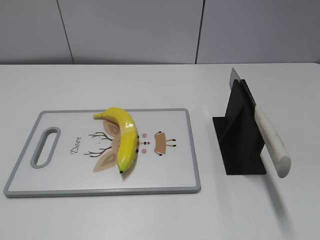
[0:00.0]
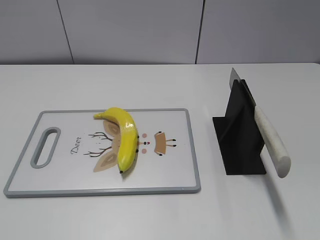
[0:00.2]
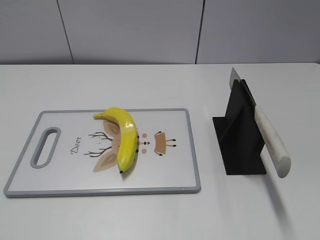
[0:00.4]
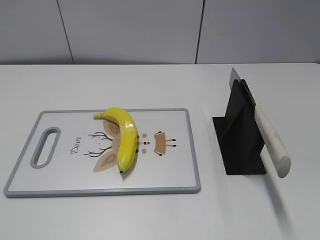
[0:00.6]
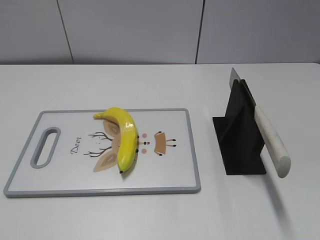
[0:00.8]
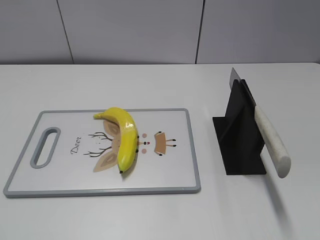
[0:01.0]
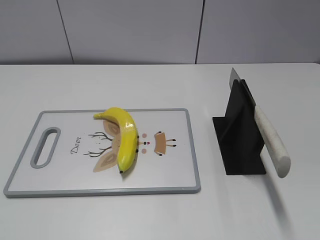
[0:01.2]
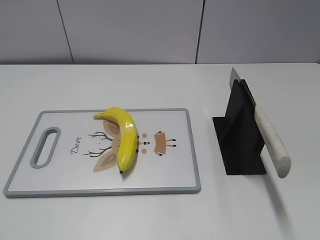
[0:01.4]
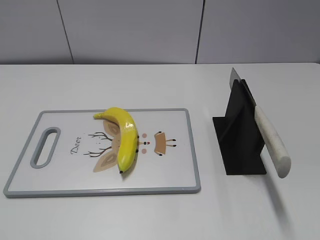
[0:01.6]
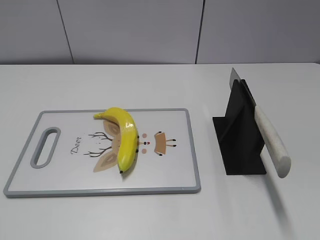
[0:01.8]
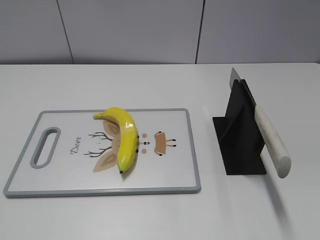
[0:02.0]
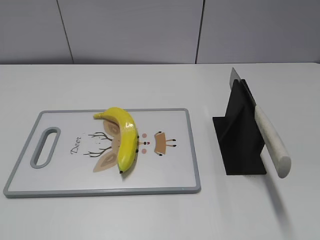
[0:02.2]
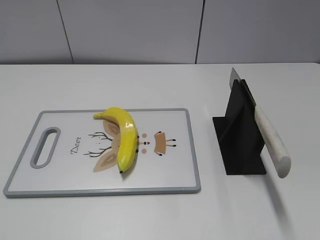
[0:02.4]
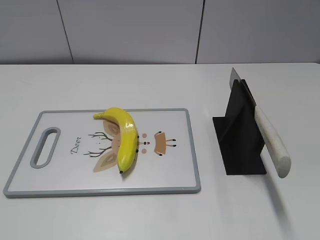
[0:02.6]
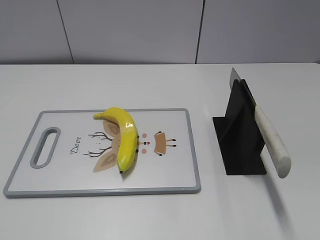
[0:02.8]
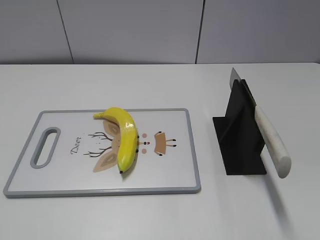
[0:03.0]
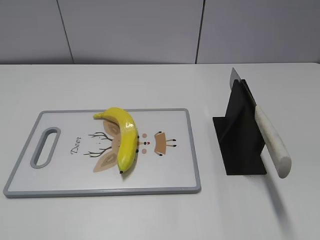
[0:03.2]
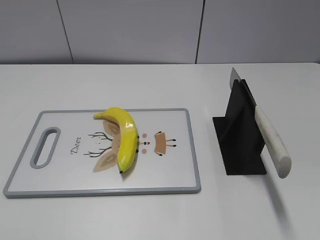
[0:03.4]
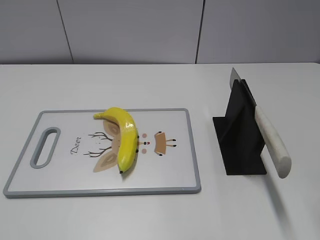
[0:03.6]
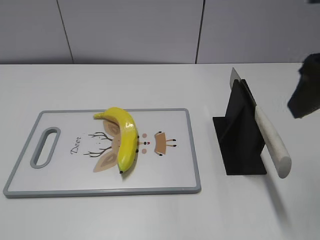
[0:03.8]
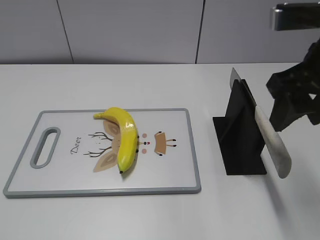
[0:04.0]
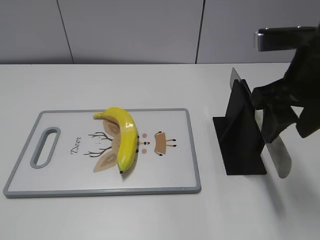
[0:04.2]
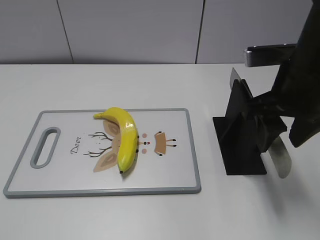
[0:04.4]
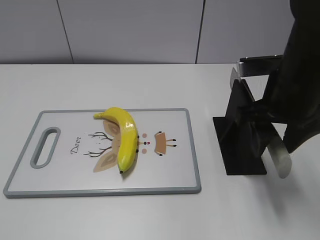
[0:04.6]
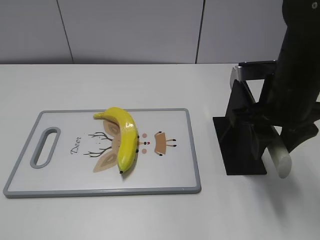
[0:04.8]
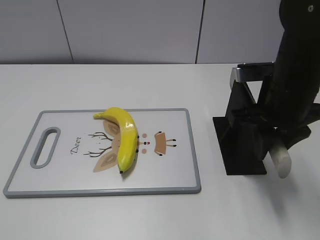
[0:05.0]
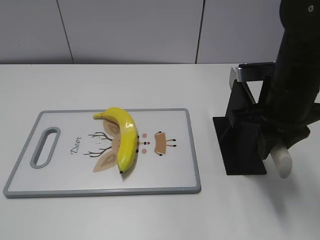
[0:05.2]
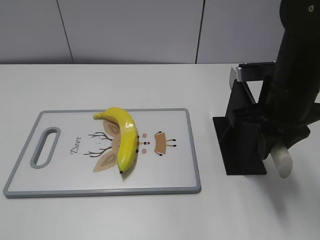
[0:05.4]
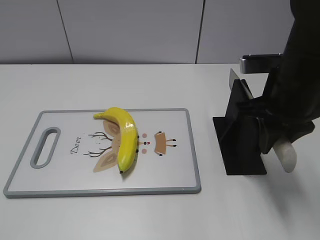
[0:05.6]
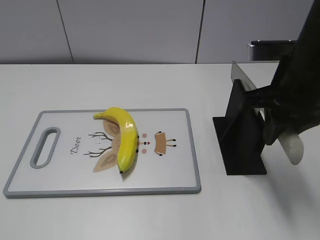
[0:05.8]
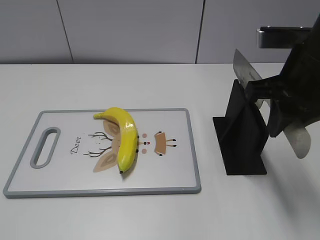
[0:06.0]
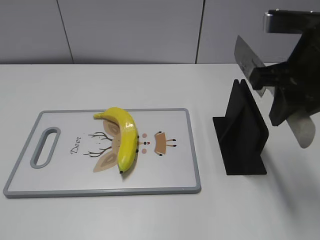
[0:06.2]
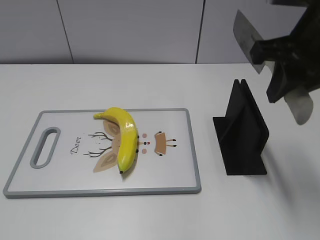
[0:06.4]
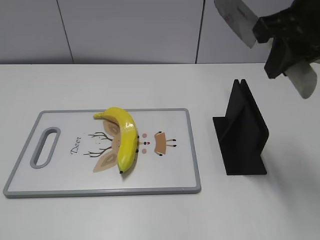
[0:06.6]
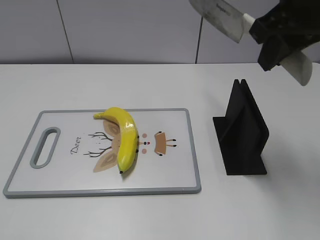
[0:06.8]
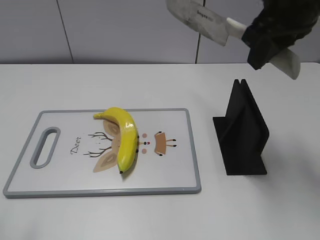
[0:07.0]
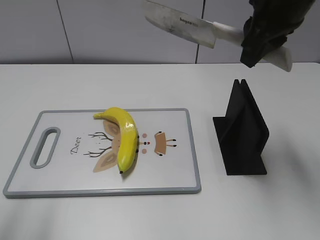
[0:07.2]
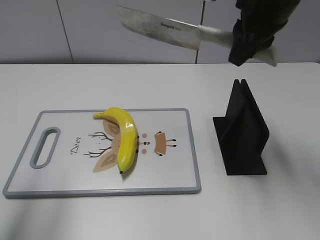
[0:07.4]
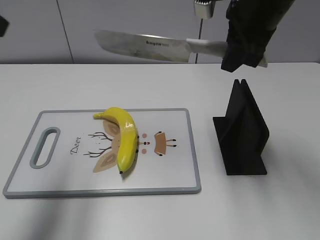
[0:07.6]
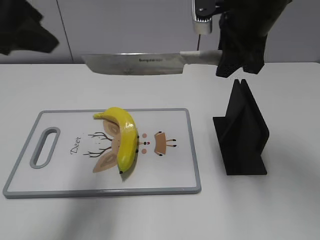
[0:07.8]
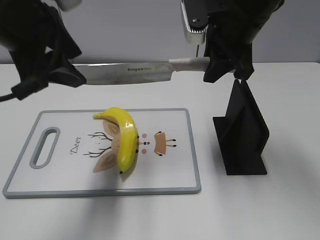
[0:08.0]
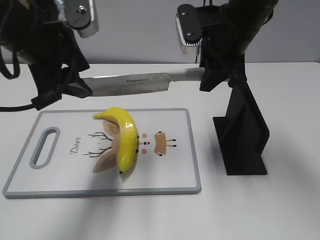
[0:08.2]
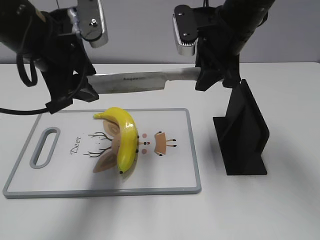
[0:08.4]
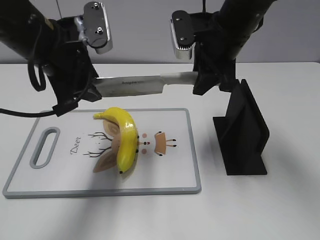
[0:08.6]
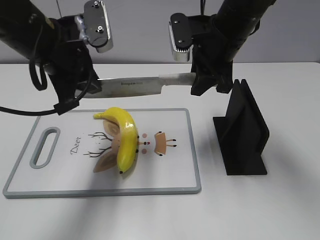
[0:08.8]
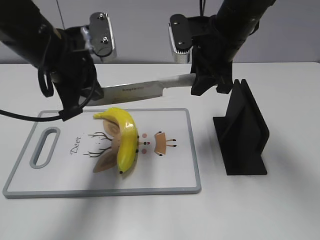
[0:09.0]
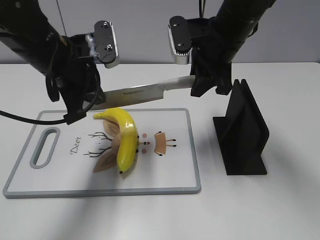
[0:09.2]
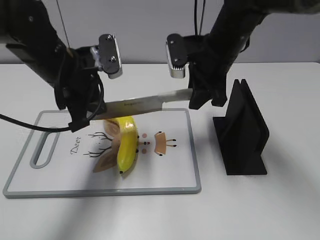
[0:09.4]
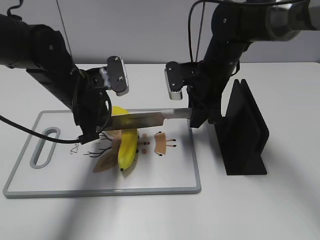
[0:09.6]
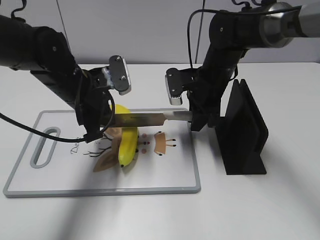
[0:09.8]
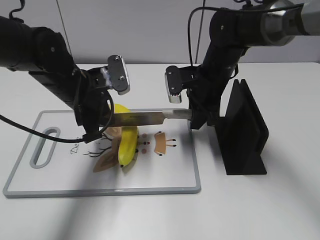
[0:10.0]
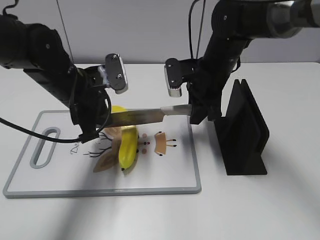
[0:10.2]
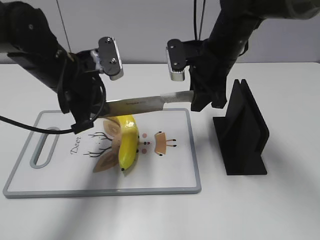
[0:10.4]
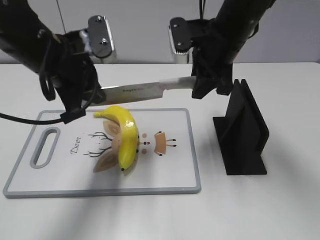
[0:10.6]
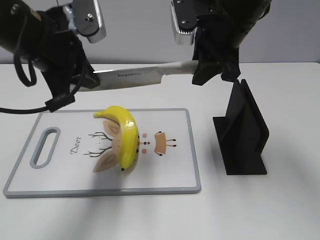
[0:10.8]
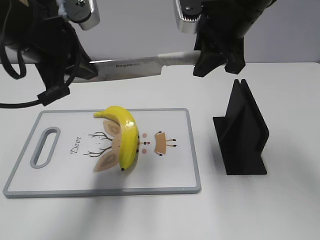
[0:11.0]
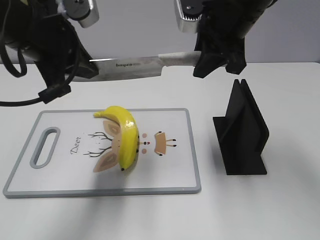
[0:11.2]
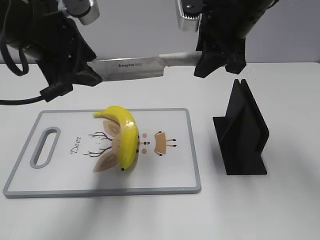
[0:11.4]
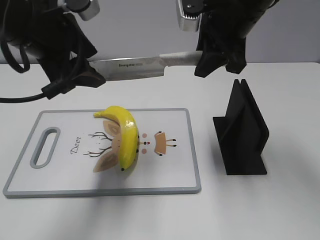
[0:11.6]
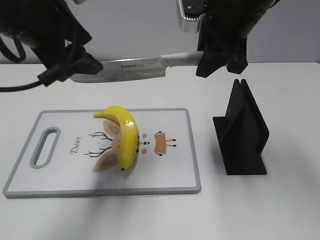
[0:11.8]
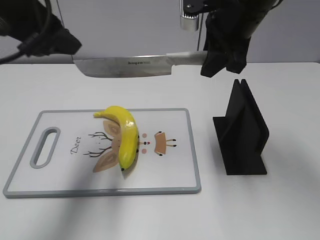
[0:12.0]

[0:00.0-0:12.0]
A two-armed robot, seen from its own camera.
Task of the whole recording: cut plastic banana.
Step, 0:00.0 to 0:06.6: Grab the knife handle with your right hand.
Step, 0:06.8 to 0:11.2: Hold the blade with your left hand.
0:03.0 to 0:04.4: The right gripper heads forward, to the left and downward, covering approximately 20 cm.
0:04.4 to 0:06.0: The right gripper closes.
0:06.0 to 0:07.6: The left gripper heads forward and upward, covering some 25 cm; the right gripper shifts about 10 cm forward.
0:07.6 to 0:09.0: The left gripper heads downward, to the right and forward, covering roughly 20 cm, and closes its fingers. Meanwhile the right gripper shifts about 5 cm downward.
0:10.4 to 0:12.0: Both grippers travel together upward, approximately 10 cm. The left gripper opens.

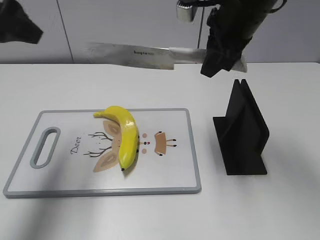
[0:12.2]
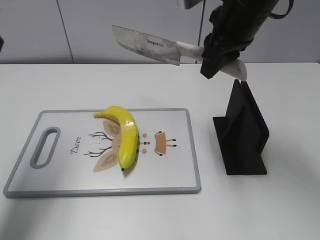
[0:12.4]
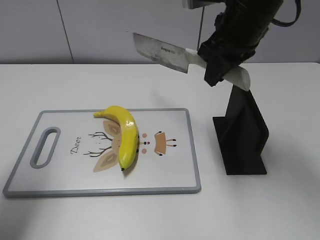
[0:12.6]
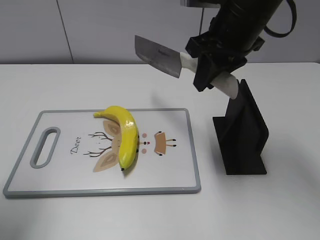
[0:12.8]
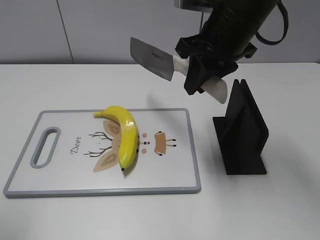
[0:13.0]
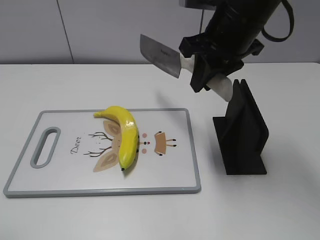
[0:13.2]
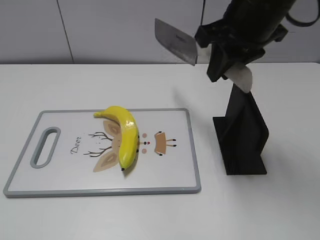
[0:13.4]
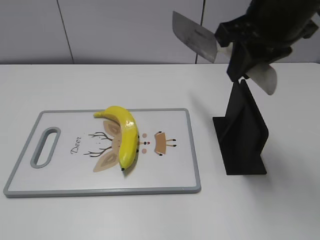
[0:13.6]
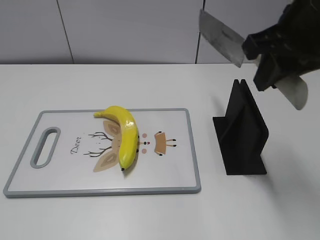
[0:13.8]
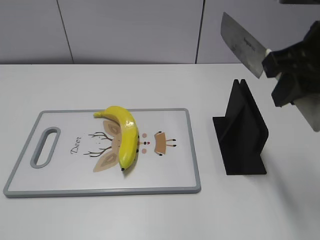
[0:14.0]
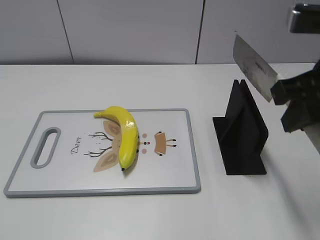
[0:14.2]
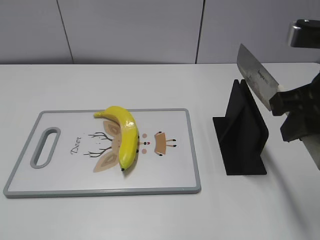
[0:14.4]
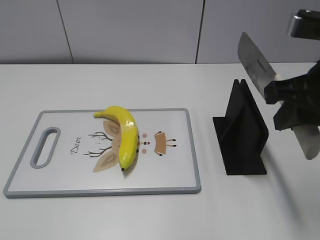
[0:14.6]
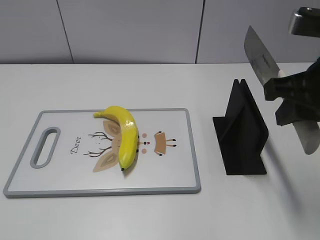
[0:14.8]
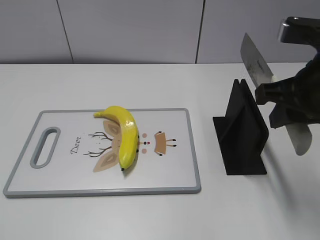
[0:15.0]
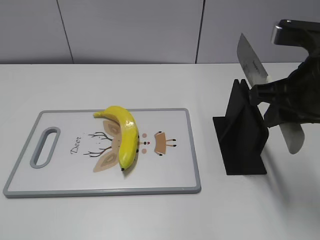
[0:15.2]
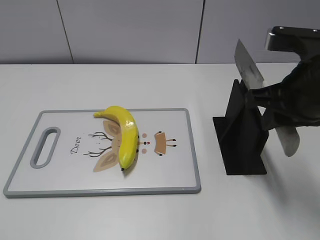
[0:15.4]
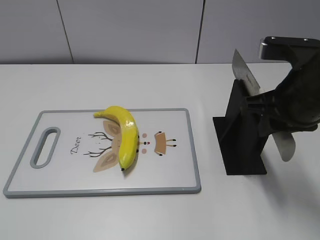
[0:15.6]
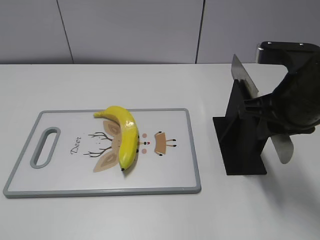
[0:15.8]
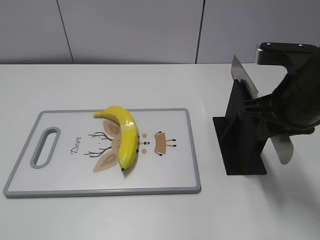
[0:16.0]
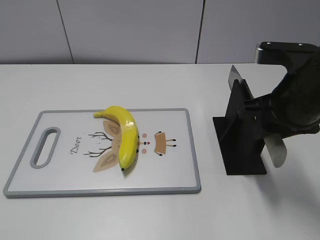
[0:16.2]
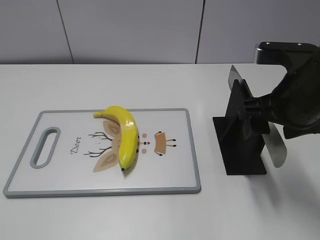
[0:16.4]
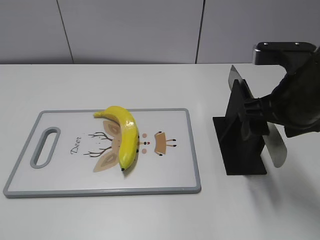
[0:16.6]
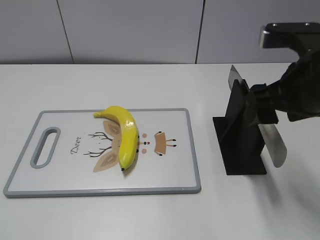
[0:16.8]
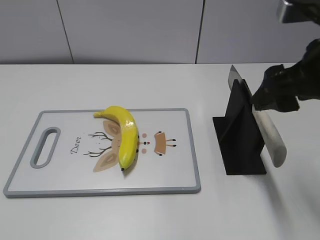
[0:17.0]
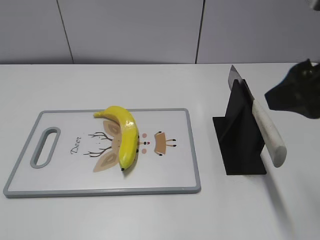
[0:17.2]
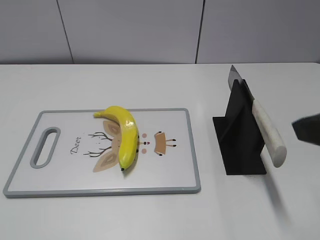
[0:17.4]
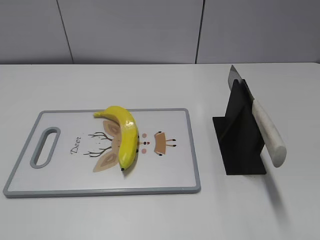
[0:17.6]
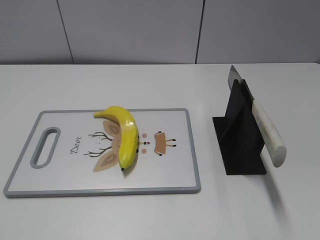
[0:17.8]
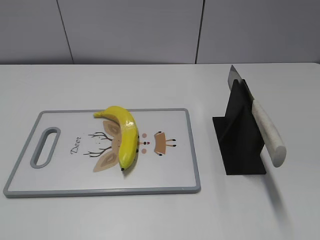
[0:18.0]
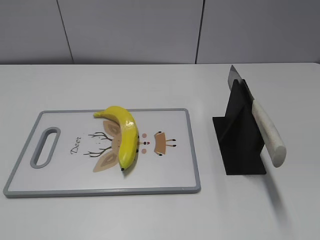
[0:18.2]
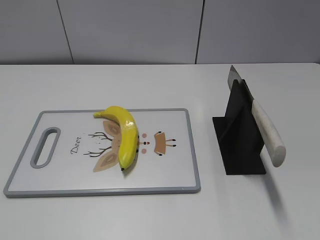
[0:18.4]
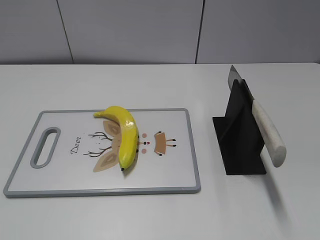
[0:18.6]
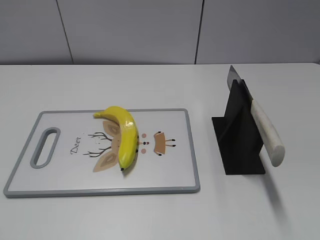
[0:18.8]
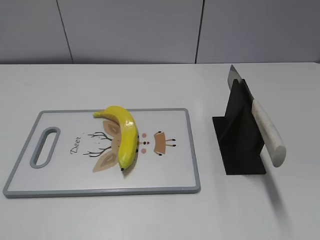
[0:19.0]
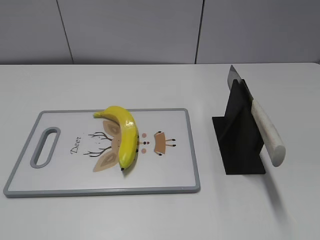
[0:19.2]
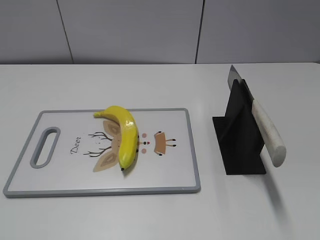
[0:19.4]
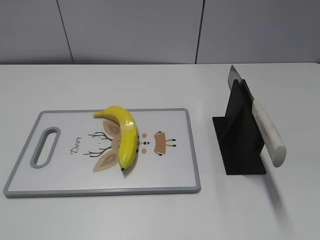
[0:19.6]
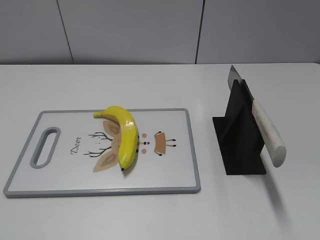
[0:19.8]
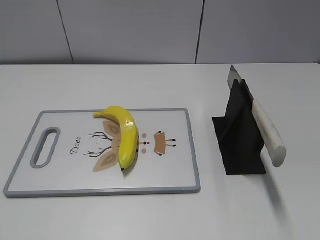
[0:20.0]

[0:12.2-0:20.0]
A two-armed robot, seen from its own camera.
Task of the whole recording: cut plastic banana.
Step, 0:12.6 to 0:14.0: Lift the knife with your right hand.
Step, 0:14.4 to 0:20.0: Place the knife on the storage rack with your right hand.
0:12.2 to 0:13.8: The right gripper shifts approximately 10 cm backward and to the right. Meanwhile the left gripper travels backward by approximately 25 cm.
0:13.8 to 0:15.4: The right gripper travels downward by some 10 cm.
0:15.4 to 0:16.8: The right gripper opens its fingers.
0:16.8 to 0:18.4: The right gripper goes roughly 25 cm backward and to the right.
